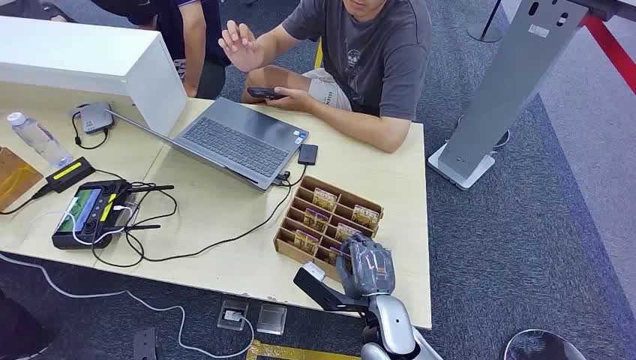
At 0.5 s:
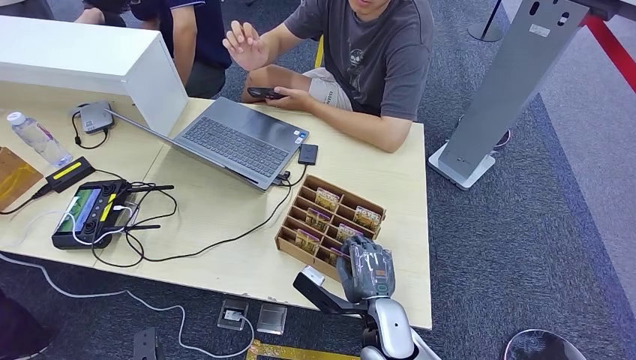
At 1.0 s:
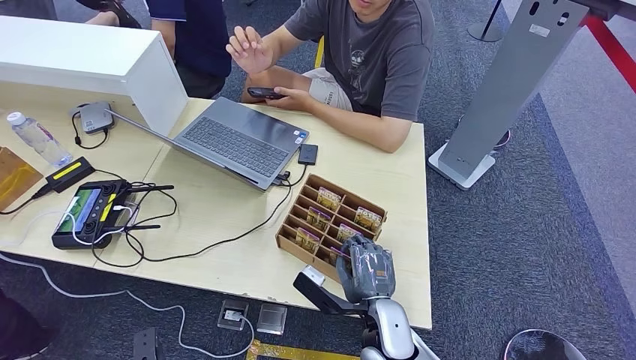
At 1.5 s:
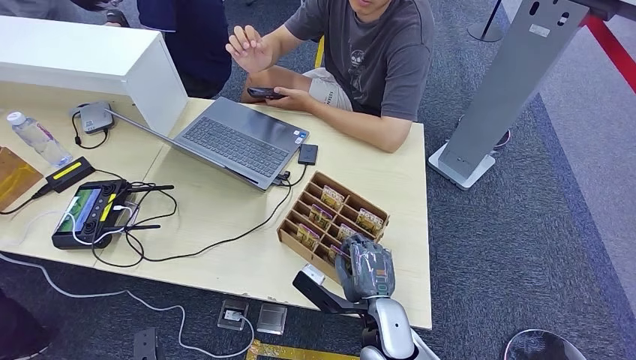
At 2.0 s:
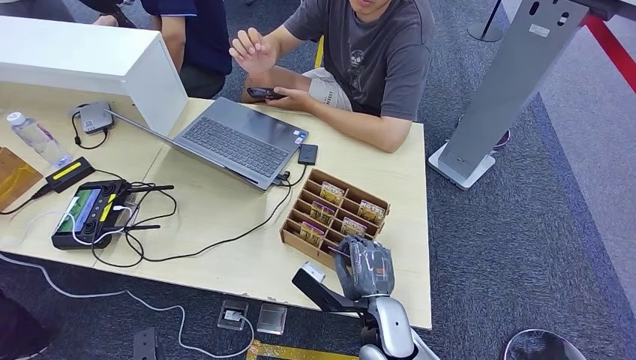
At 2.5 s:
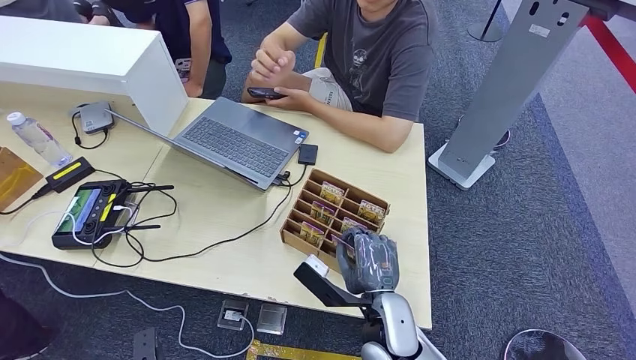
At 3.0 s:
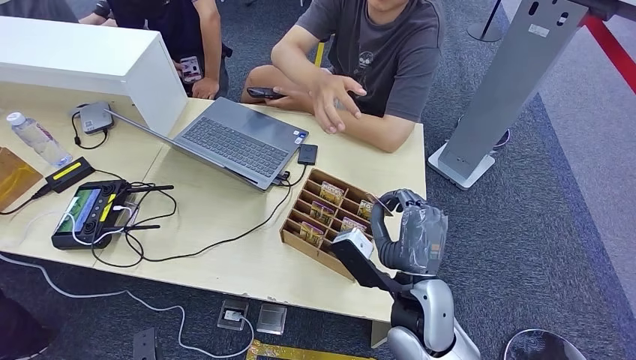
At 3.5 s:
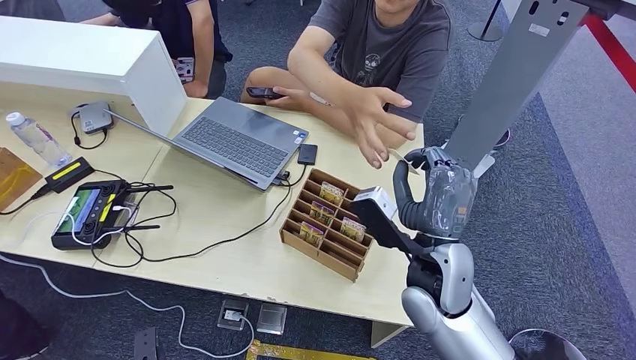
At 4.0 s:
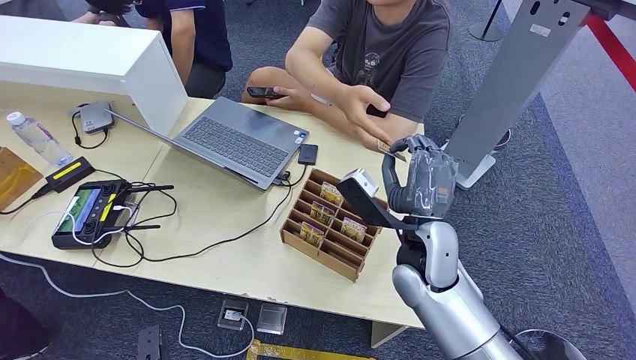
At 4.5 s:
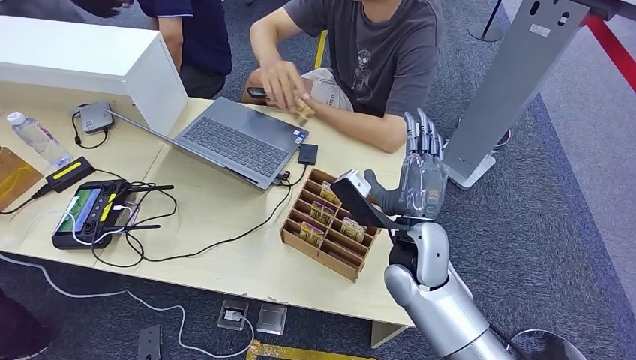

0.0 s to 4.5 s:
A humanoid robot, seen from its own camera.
Step, 0.0 to 2.5 s: Pick up the key card from the card box.
Step, 3.0 to 4.5 s: Hand the key card to the target.
2.0 to 4.5 s: The right hand heads upward and forward, covering roughly 15 cm.

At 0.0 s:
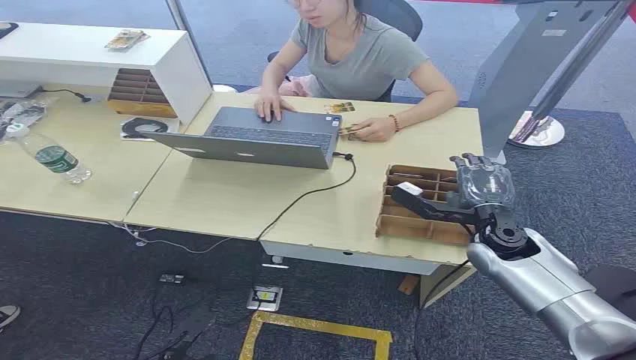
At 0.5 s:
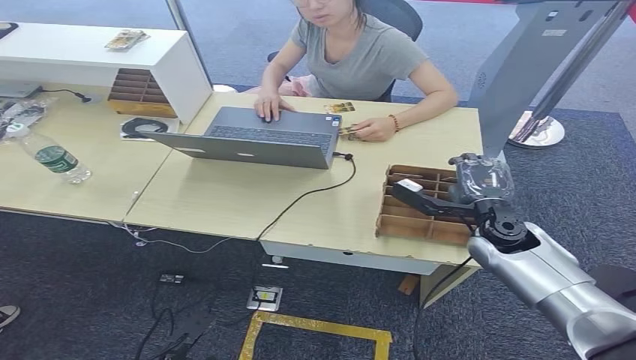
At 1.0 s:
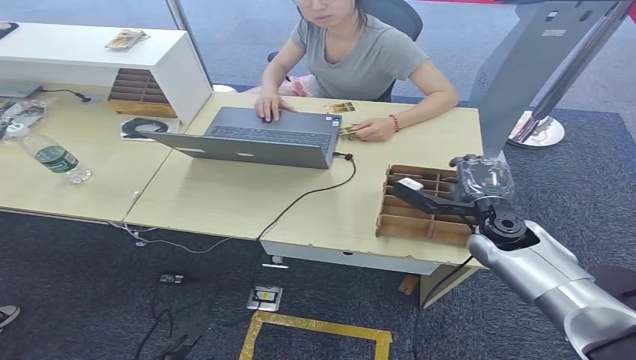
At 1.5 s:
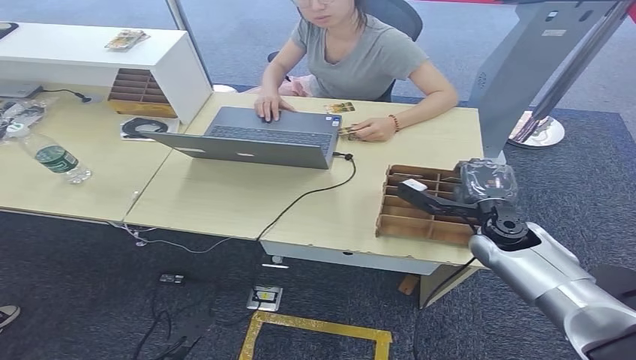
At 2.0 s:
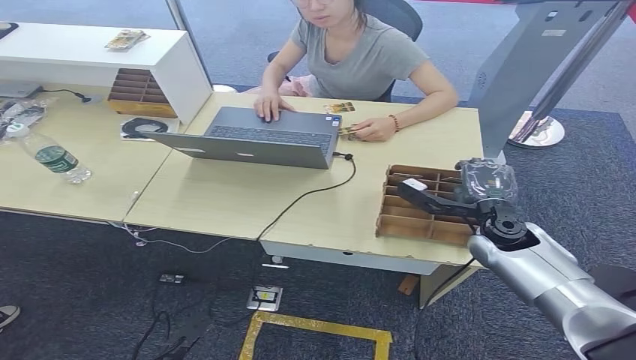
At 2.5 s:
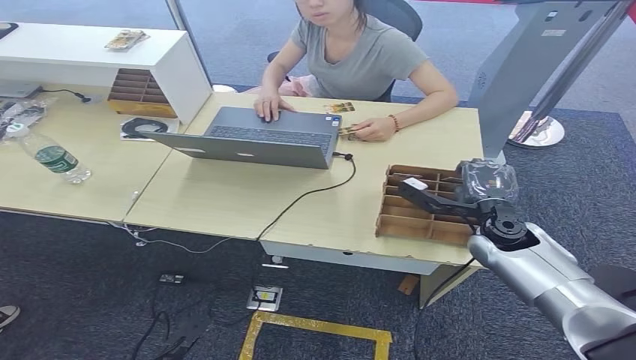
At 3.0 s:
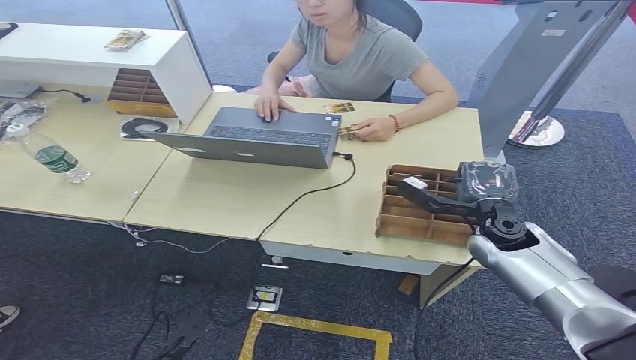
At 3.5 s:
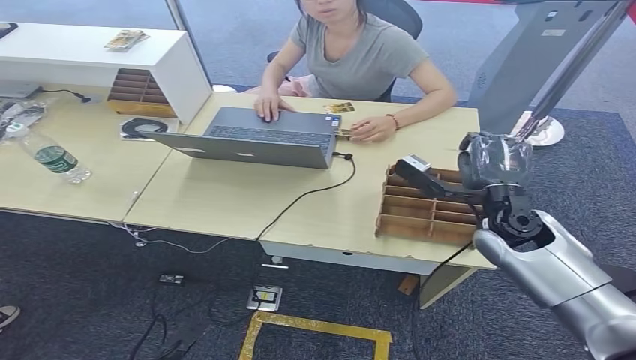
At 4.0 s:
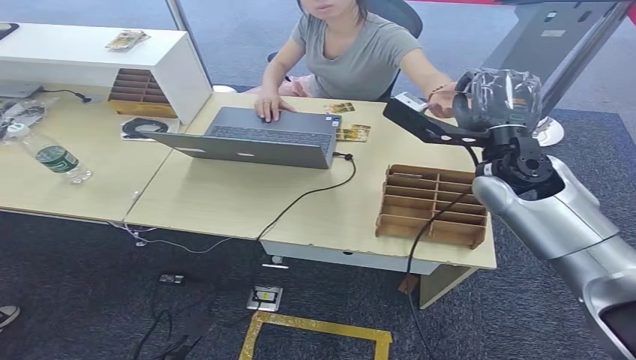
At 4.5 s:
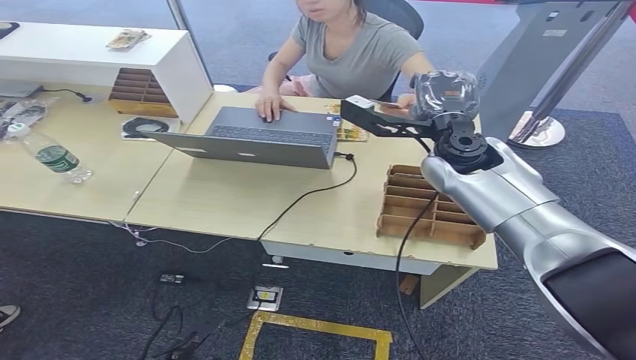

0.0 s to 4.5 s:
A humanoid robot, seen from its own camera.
Step, 0.0 to 3.0 s: Pick up the key card from the card box.
Step, 3.5 to 4.5 s: Hand the key card to the target.
2.0 to 4.5 s: The right hand is displaced upward and to the left by some 20 cm.
